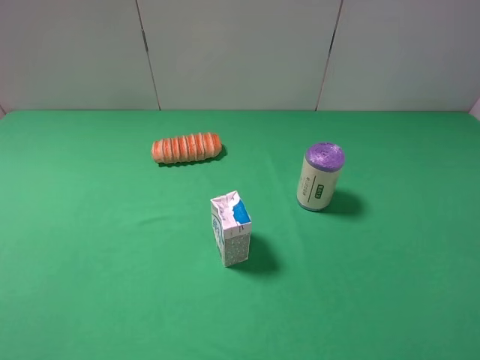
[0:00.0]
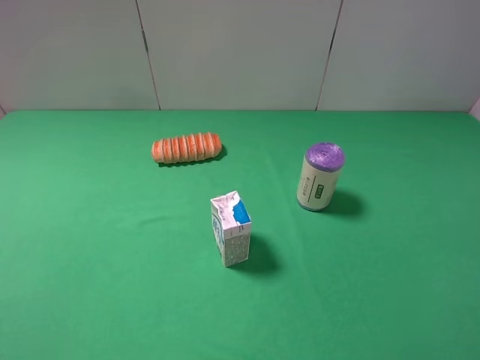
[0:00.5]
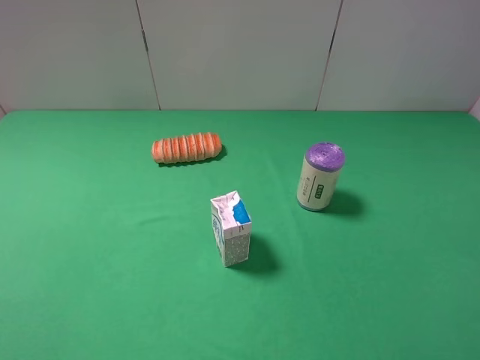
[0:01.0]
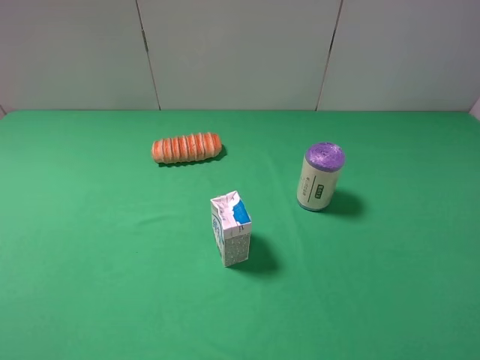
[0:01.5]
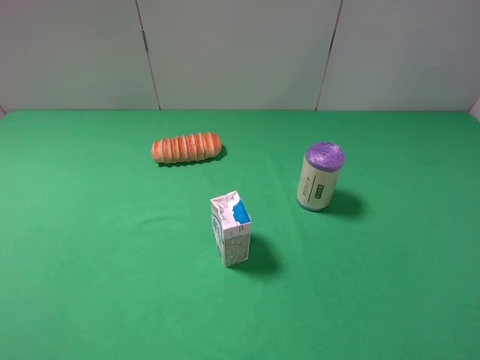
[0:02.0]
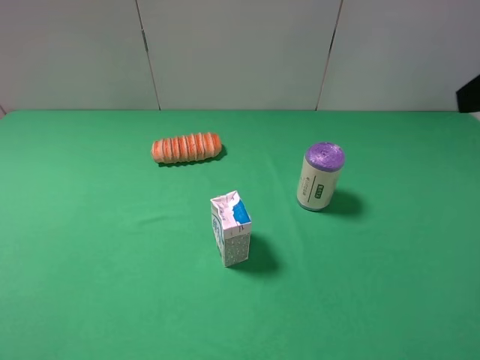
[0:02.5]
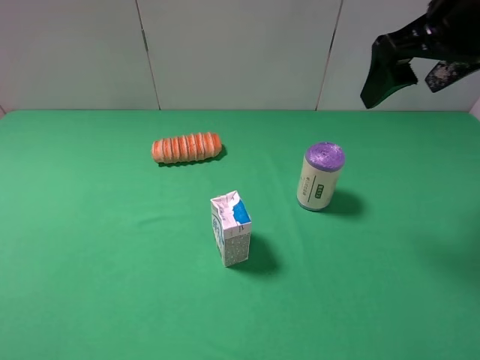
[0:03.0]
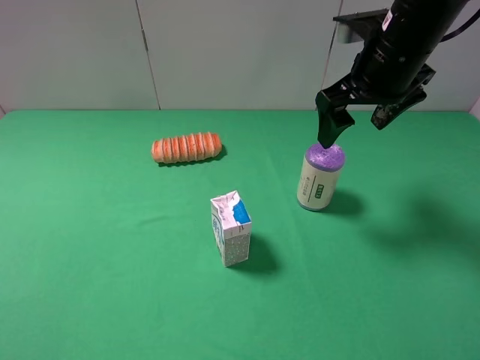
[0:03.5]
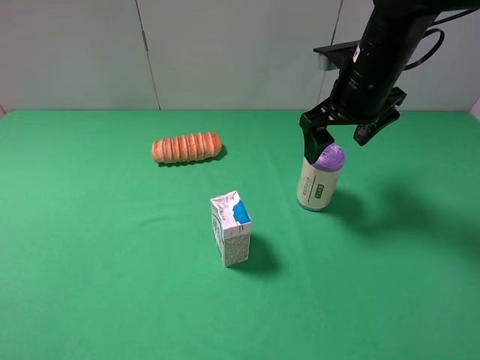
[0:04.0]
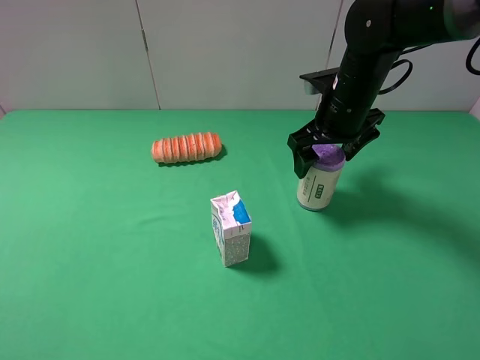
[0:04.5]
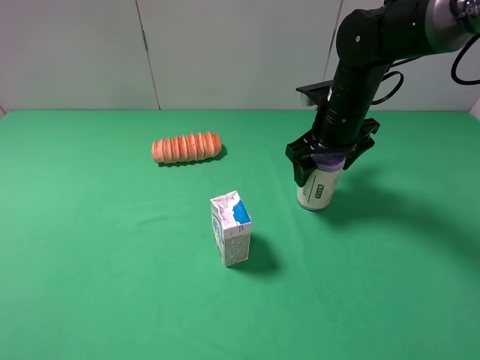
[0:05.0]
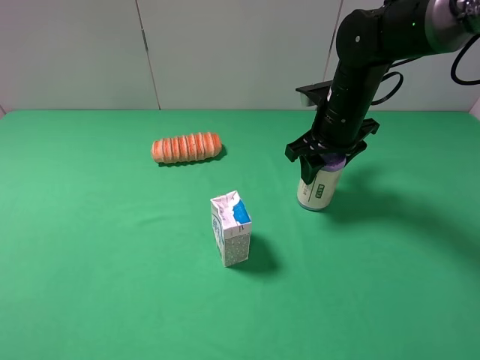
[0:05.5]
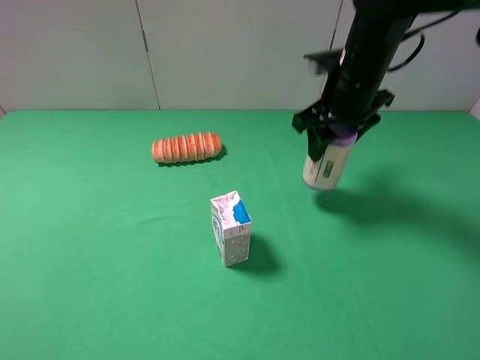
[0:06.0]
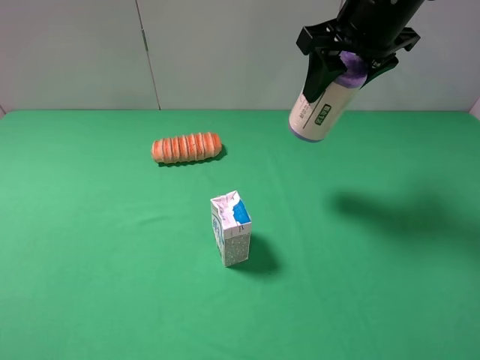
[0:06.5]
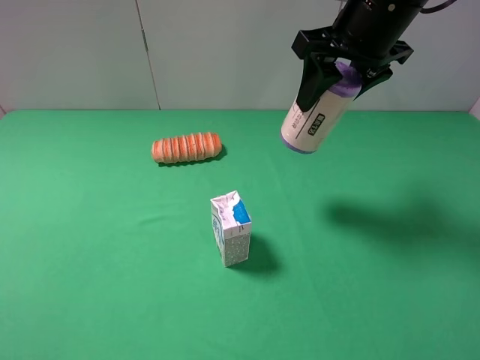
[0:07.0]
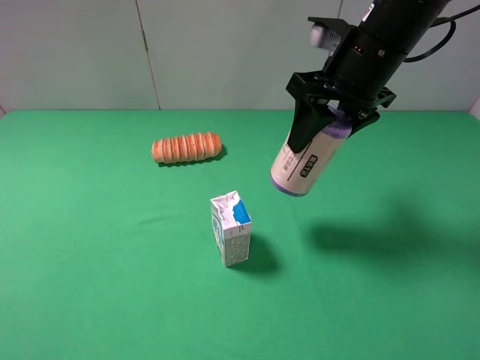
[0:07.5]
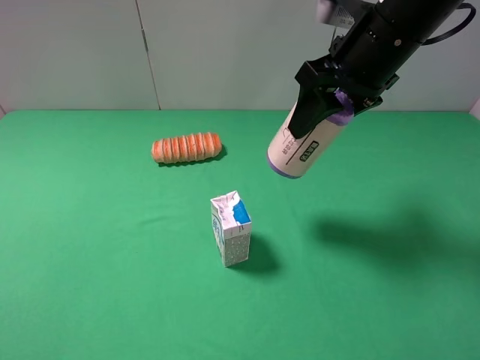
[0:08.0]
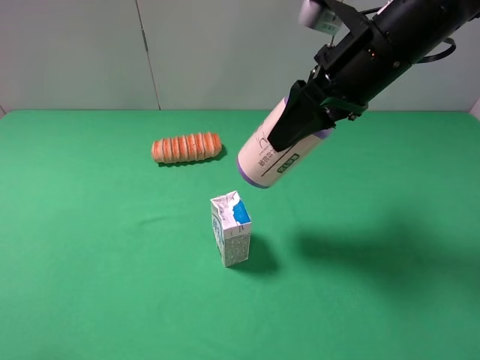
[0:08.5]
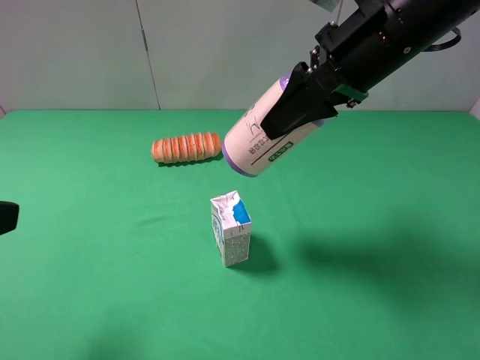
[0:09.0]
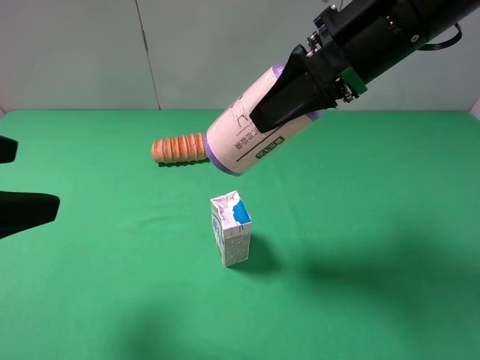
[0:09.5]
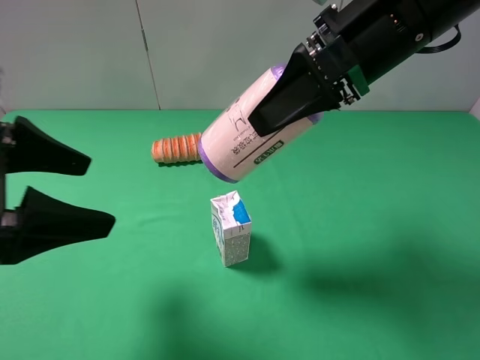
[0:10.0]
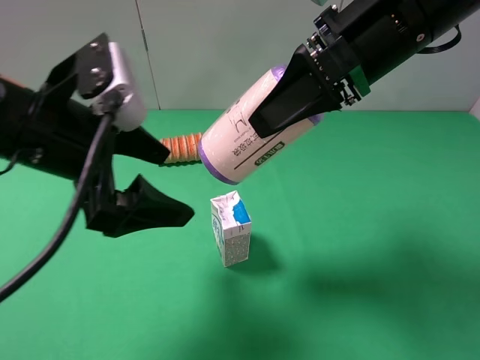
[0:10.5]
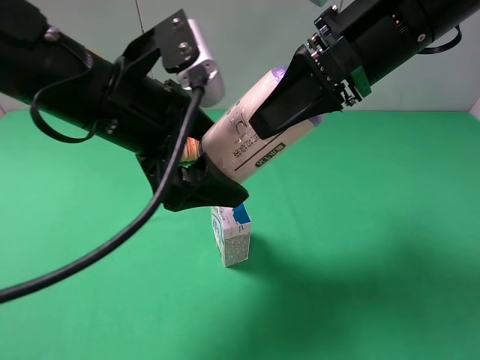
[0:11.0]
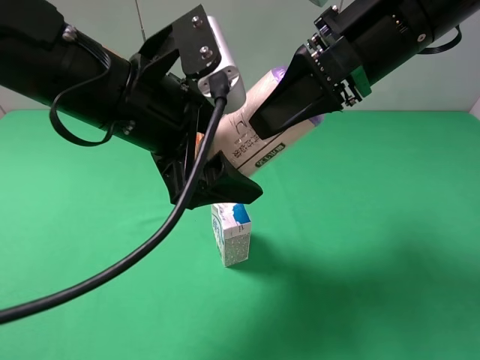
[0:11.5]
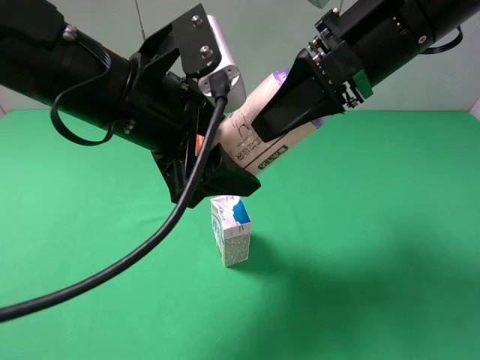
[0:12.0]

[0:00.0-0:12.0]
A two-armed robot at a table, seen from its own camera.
Task of the whole recording: use the right gripper to pick up the item and transfer it from the right gripper to the left gripper.
Step, 0:00.0 to 0:05.0: Use the right gripper to grab the purple garbage bag on the right side of the table.
0:02.0 to 0:04.0: The right gripper goes roughly 35 cm forward and to the left.
0:04.0 to 0:06.0: The right gripper closes up.
0:06.0 to 0:08.0: The right gripper is displaced backward and upward by approximately 10 cm.
0:08.0 to 0:10.0: The left gripper goes roughly 15 cm forward and to the right; the right gripper changes place by about 5 cm.
0:10.0 to 0:12.0: The left gripper heads to the right and forward, covering approximately 15 cm, and closes.

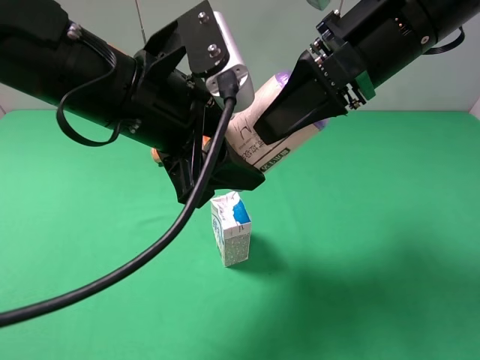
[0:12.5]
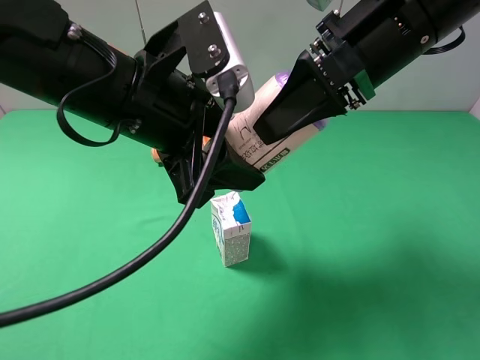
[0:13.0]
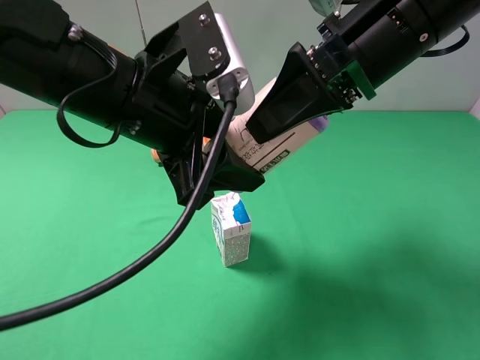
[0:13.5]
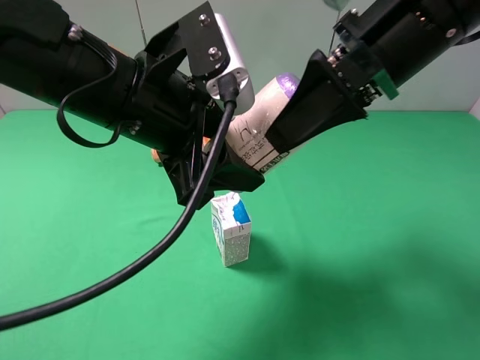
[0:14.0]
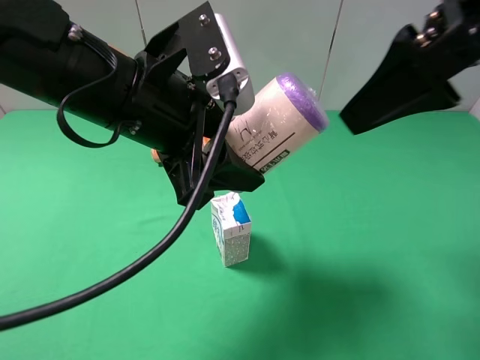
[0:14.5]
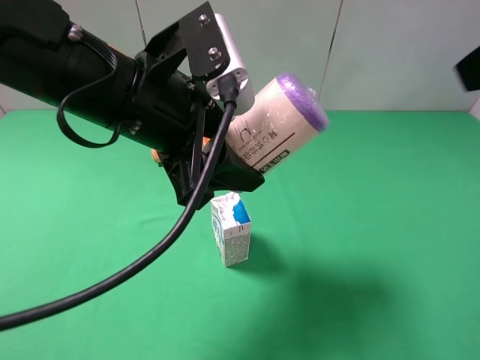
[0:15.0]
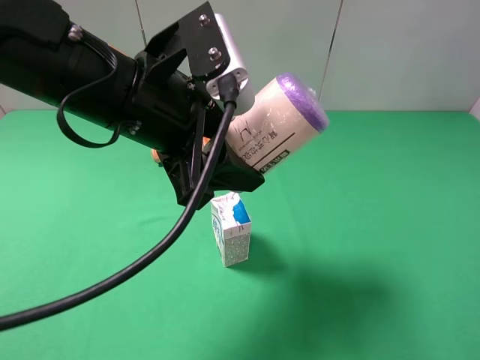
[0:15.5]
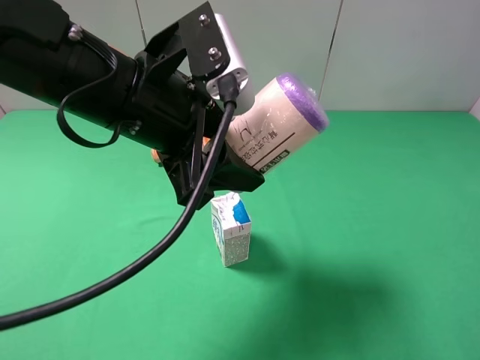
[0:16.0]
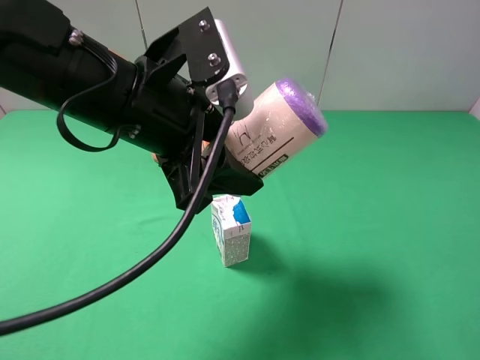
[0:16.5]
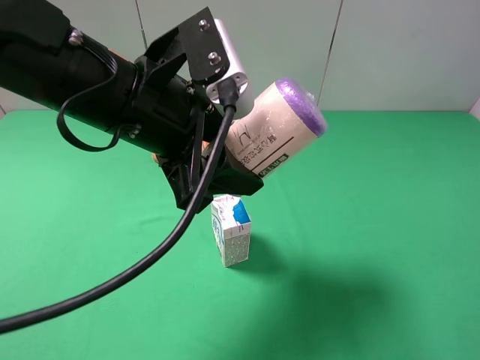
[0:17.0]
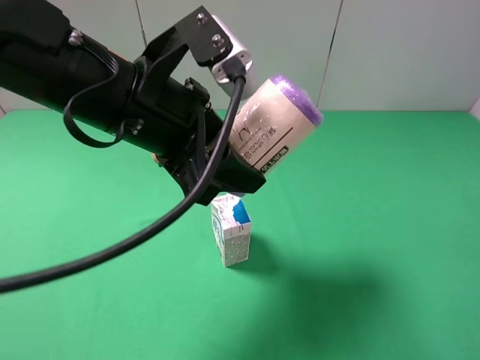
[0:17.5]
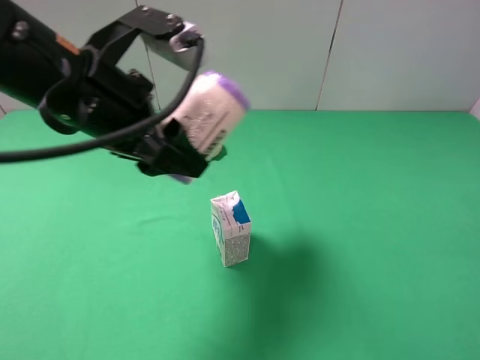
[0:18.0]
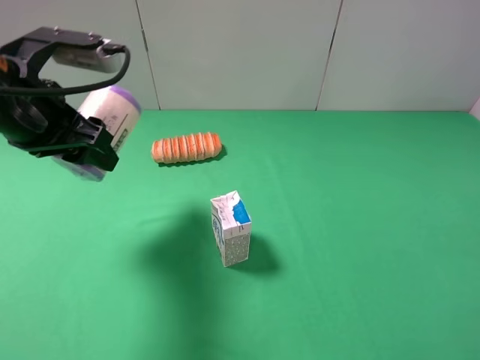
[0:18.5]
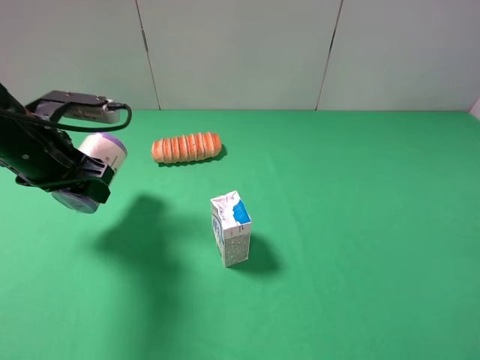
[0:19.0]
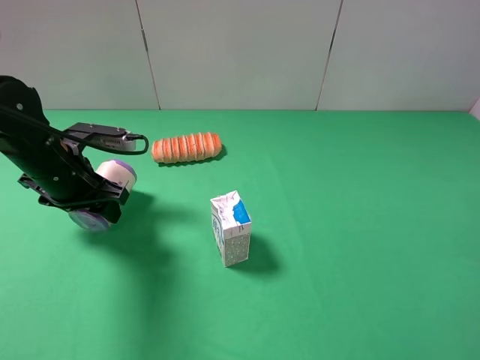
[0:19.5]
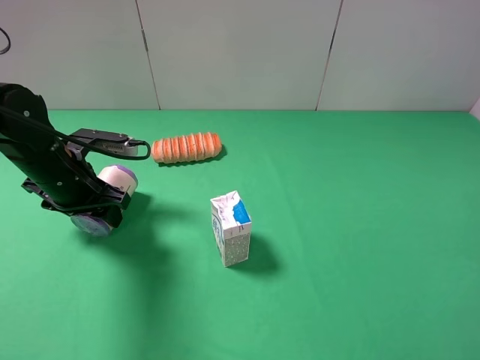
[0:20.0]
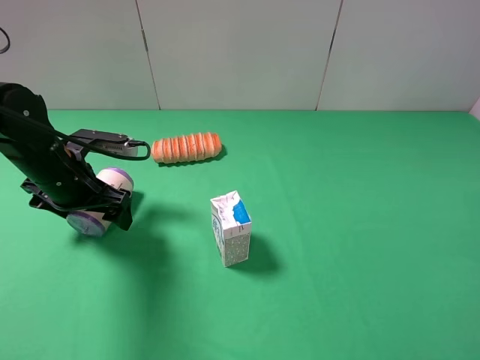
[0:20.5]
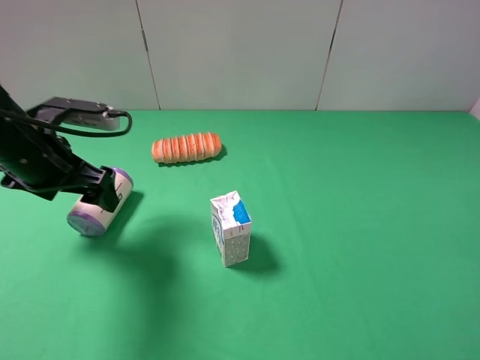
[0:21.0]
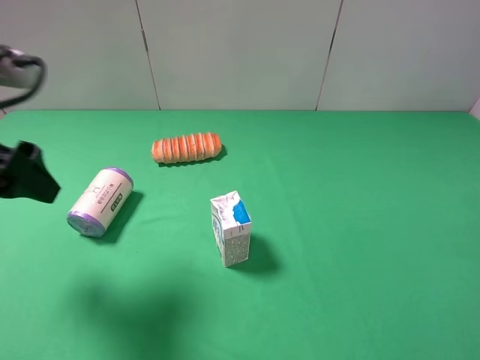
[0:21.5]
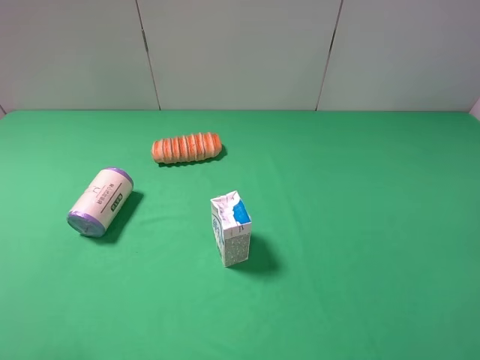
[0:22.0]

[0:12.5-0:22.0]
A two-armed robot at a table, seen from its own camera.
Task of the whole recording: use the right gripper to pick up the item and transfer it from the right gripper to the left gripper.
Step, 0:14.5 to 0:20.0: The left gripper places purple garbage bag on the left side of the table.
0:12.5 to 0:14.5: The right gripper heads to the right, backward and upward, covering some 10 cm, and opens its fingers.
0:14.5 to 0:16.5: The right gripper travels backward, to the right and downward by approximately 25 cm.
0:16.5 to 0:18.0: The left gripper heads to the left, covering about 5 cm.
0:18.0 to 0:20.0: The left gripper goes roughly 15 cm downward and to the left.
0:20.0 to 0:22.0: The left gripper travels backward and upward by roughly 30 cm, and opens up.

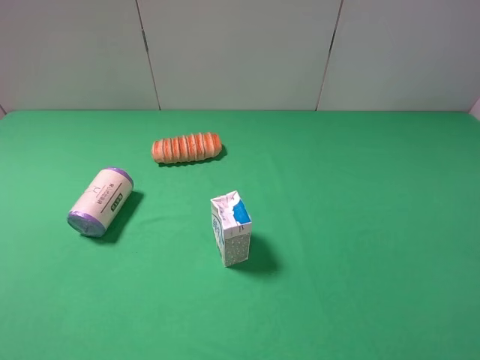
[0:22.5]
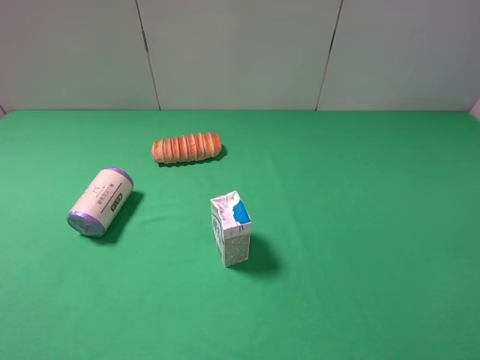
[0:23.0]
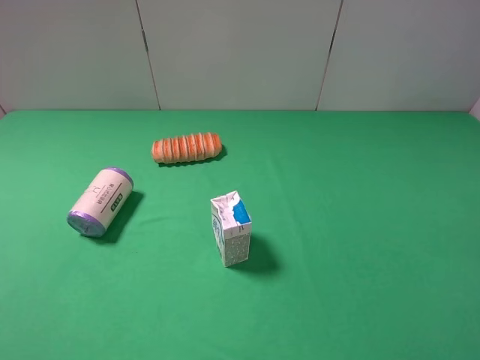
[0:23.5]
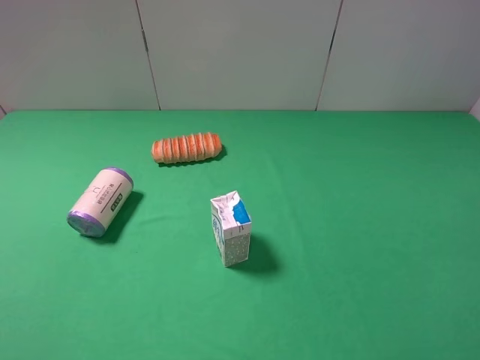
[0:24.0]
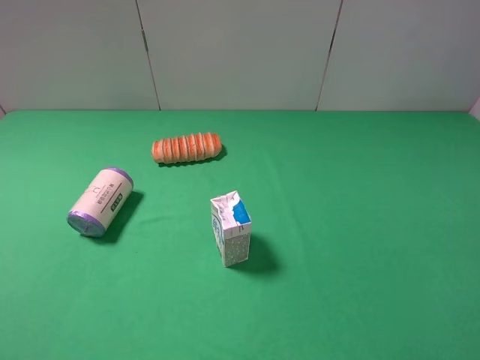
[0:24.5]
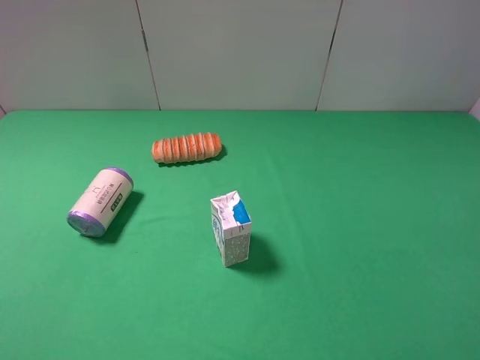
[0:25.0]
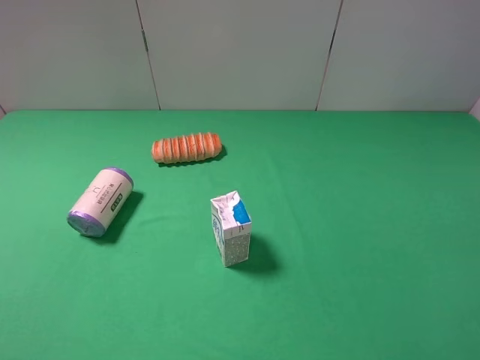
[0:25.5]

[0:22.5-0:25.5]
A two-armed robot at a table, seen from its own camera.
Task of the whole recording: use the right gripper to pick up the item and transfer it from the right gripper to the left gripper.
0:24.0 to 0:25.5: Both grippers stay put.

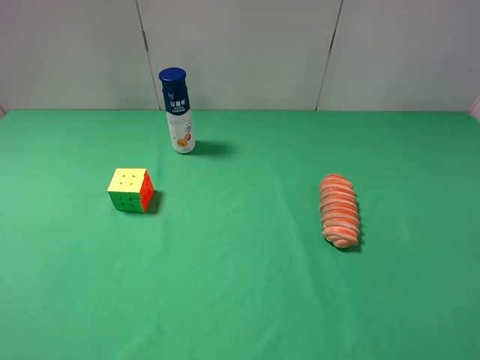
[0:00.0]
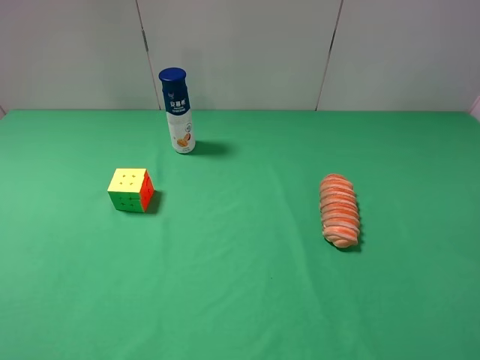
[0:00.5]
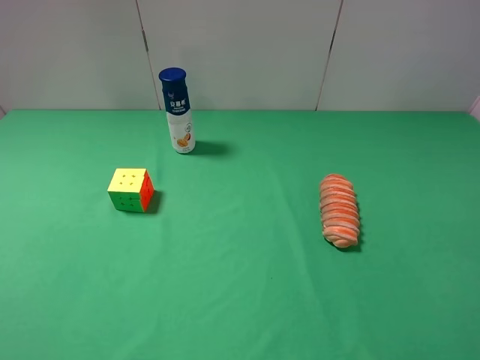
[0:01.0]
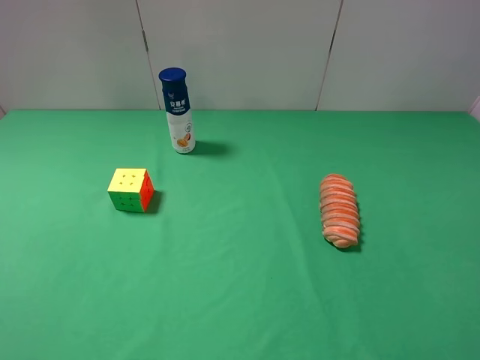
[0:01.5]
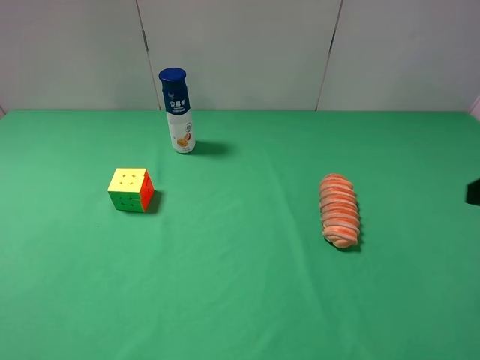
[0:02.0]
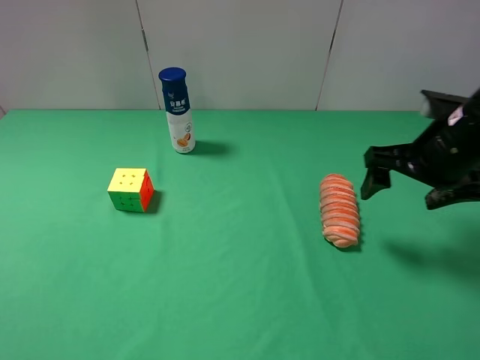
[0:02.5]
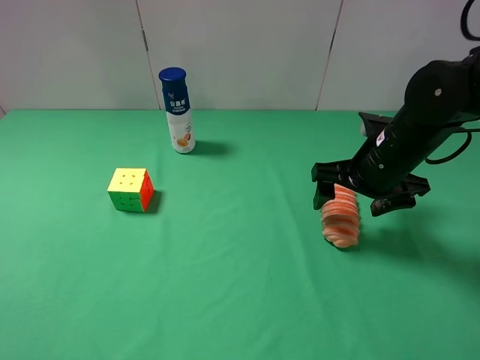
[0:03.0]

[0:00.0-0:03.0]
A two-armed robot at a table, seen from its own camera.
Task of the whole recording: use the right gripper to pick up the item and transfer it from the right gripper to the left gripper.
0:00.0 to 0:01.5: Neither gripper changes place.
0:01.5 to 0:03.0: The right gripper moves forward and downward, roughly 30 cm.
